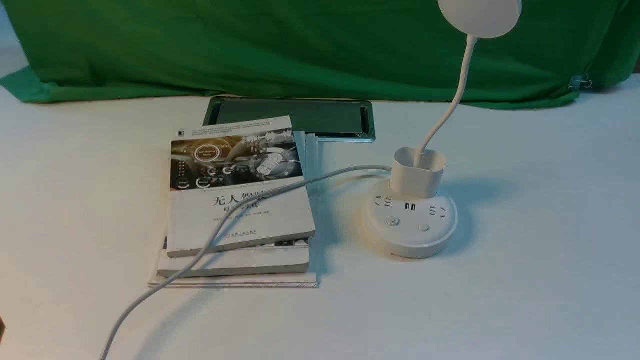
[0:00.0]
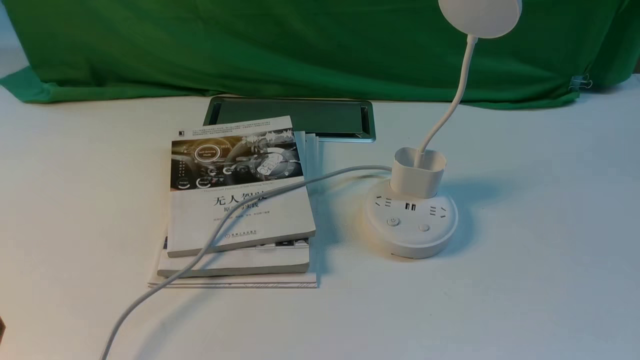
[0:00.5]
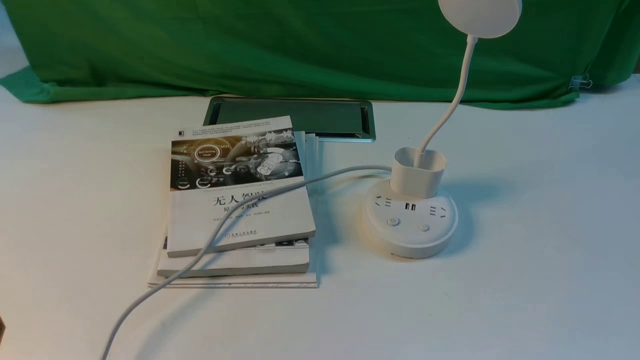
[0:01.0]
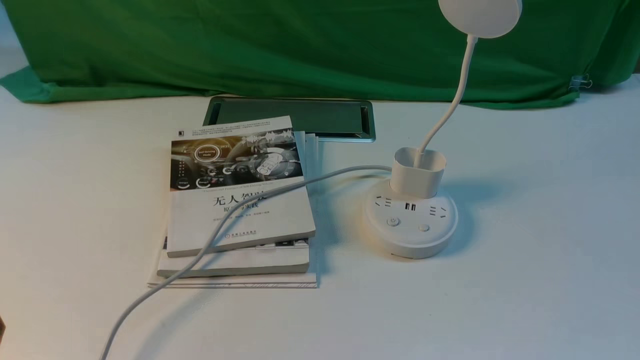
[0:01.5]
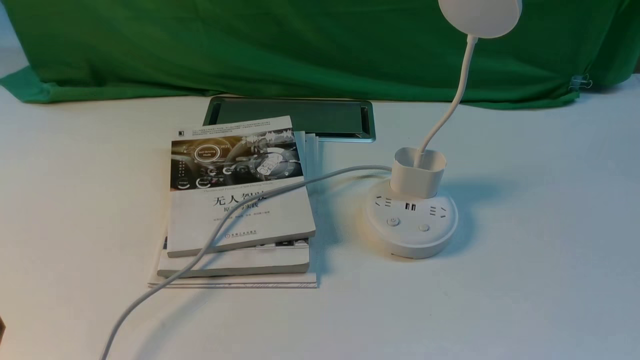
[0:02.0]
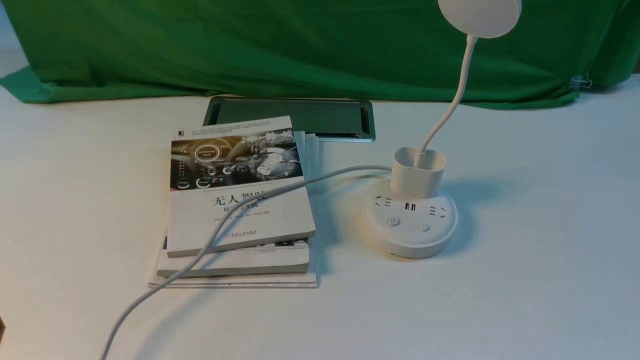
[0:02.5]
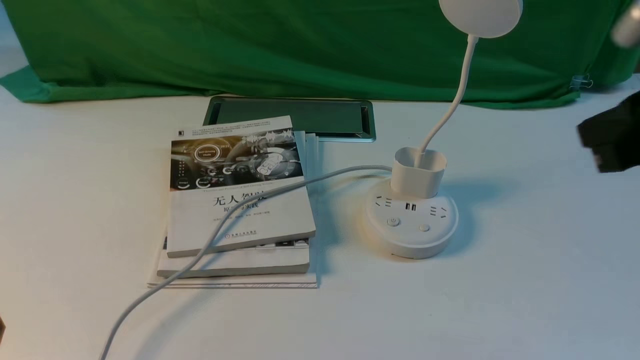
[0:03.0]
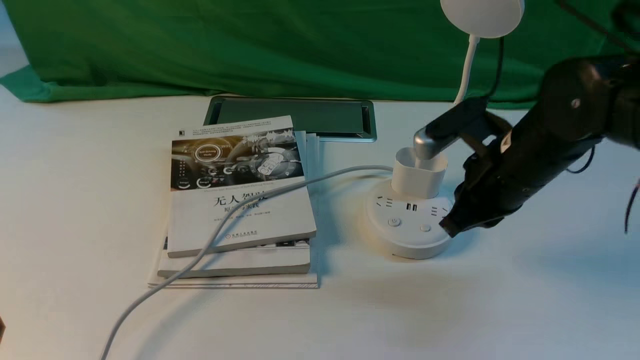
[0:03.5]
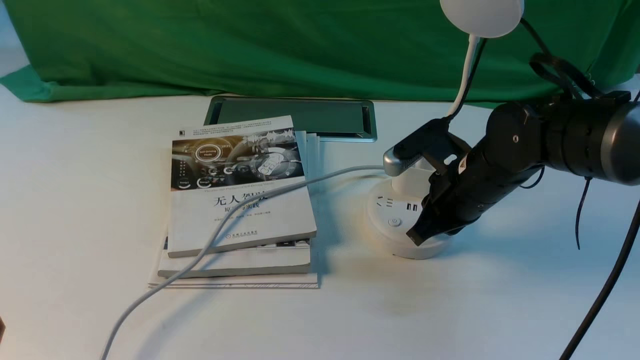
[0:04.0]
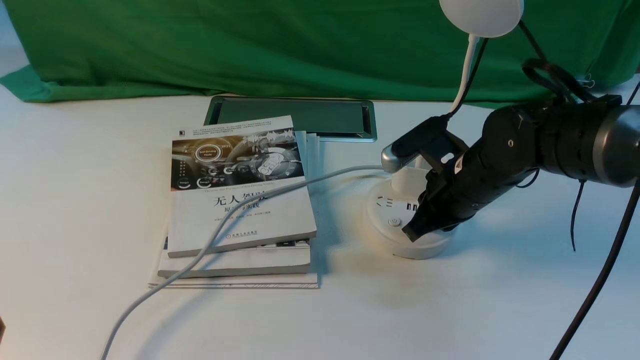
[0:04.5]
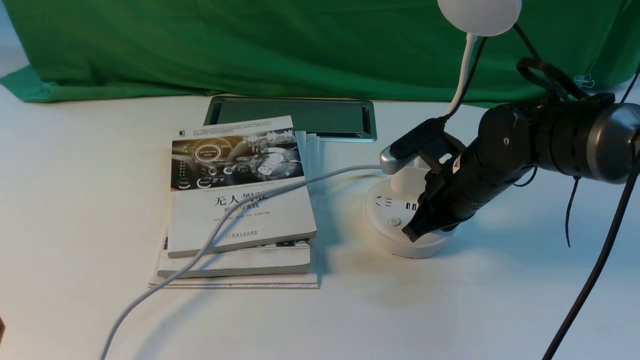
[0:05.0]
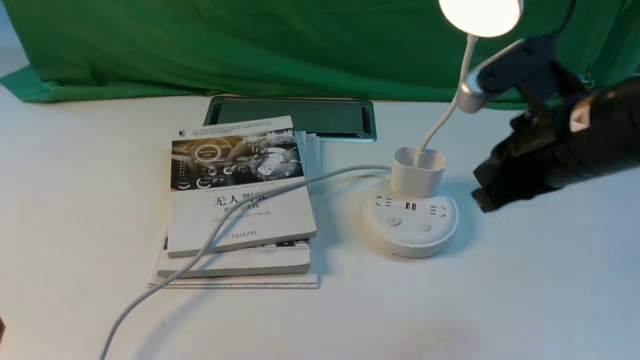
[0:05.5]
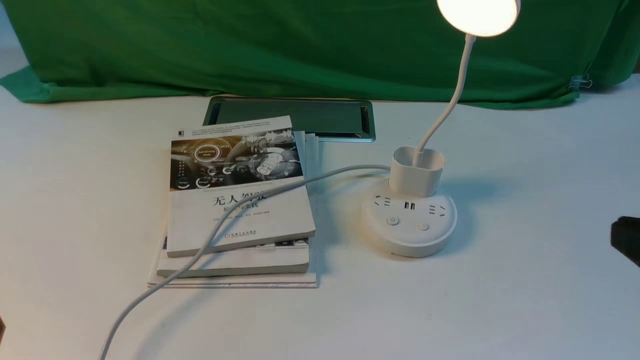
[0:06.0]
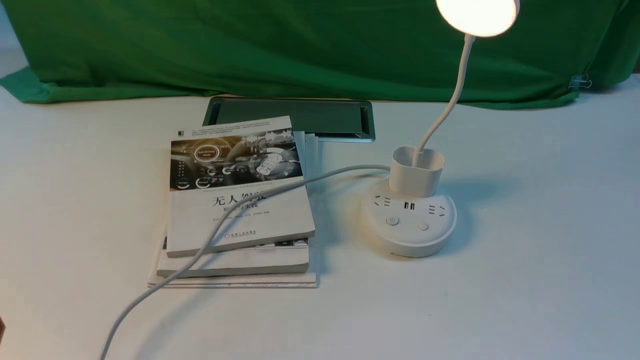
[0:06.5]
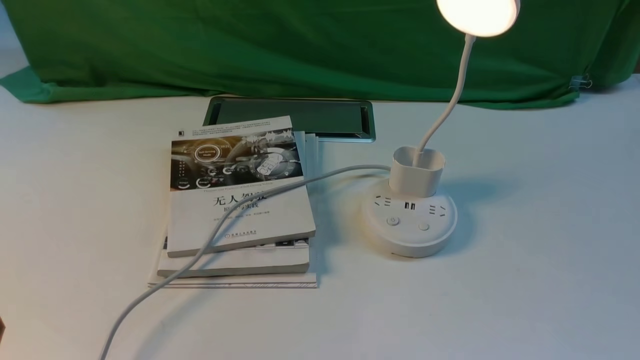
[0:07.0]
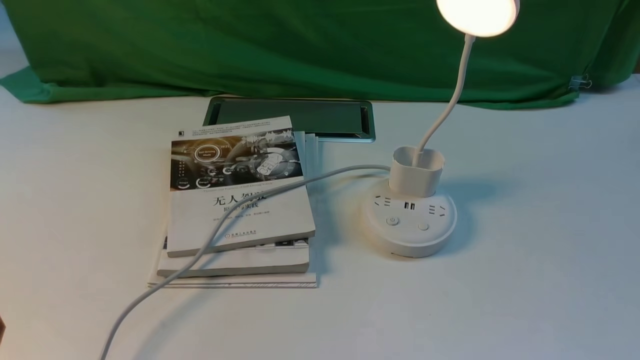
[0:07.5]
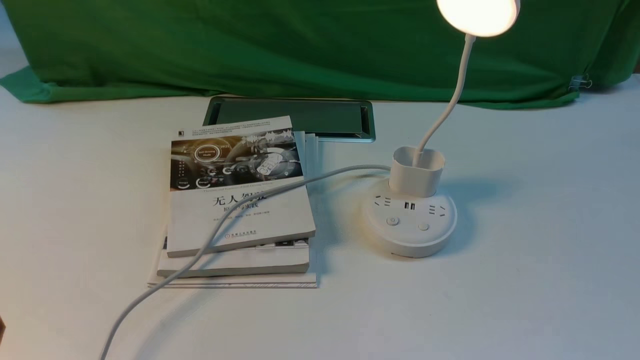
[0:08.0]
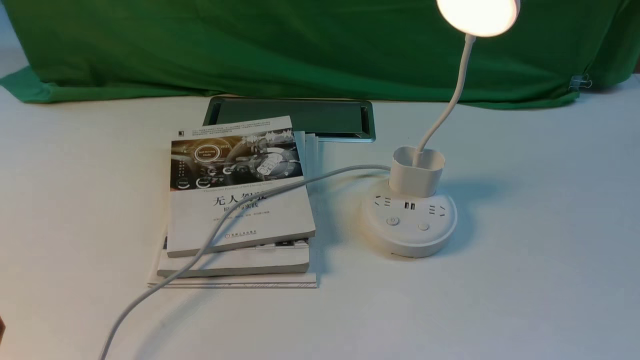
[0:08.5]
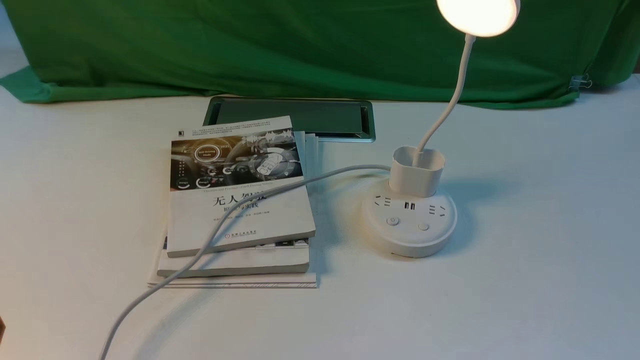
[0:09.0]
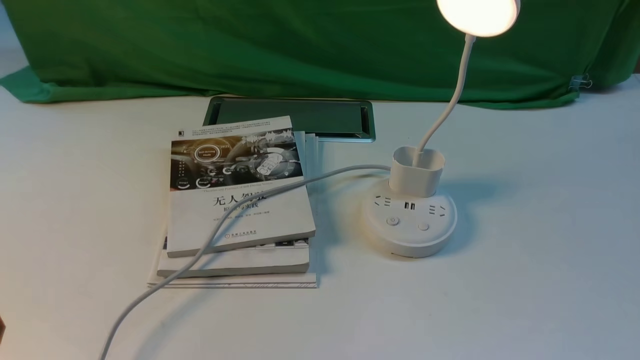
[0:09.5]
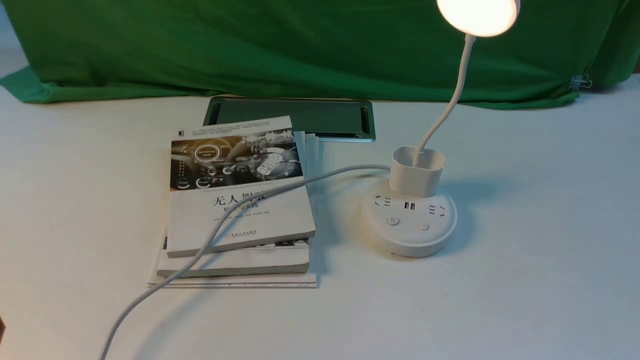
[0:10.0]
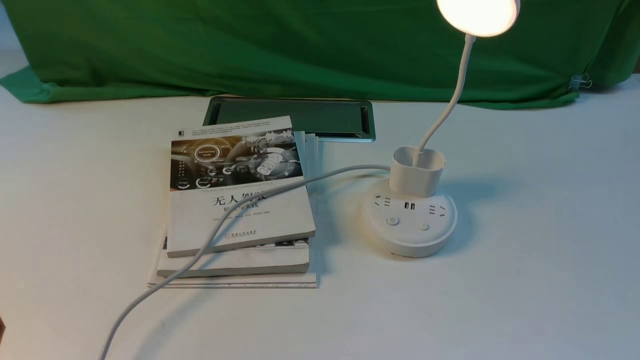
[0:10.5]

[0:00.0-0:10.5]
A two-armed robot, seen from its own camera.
Step, 0:00.0 to 0:05.0: use the right arm to press the button switch on the lamp holder.
0:02.0 to 0:04.0: The right gripper goes approximately 35 cm forward and to the left, and closes.
0:04.0 to 0:06.5: The right gripper heads backward and to the right, covering some 30 cm.
0:08.5 to 0:10.5: Both grippers stay put.

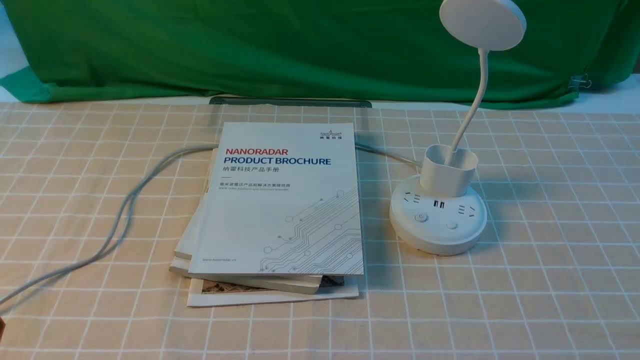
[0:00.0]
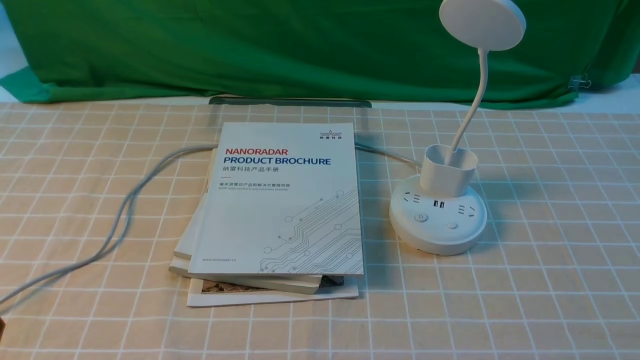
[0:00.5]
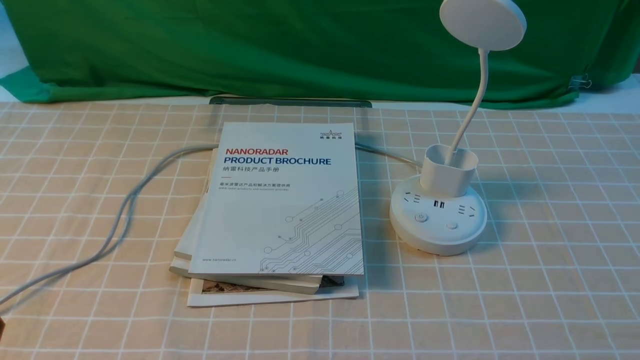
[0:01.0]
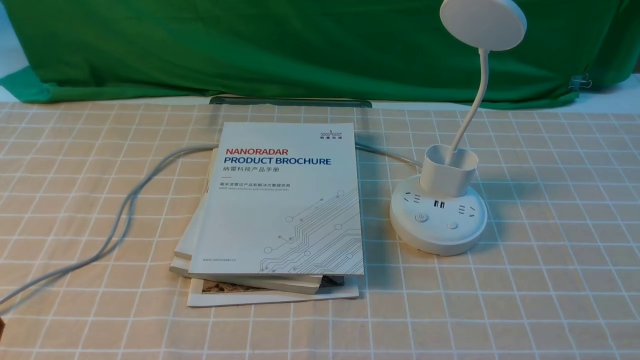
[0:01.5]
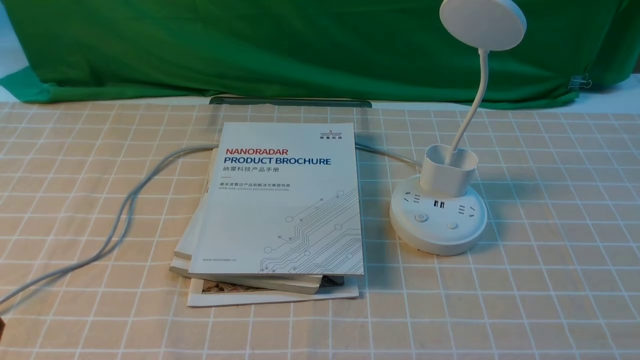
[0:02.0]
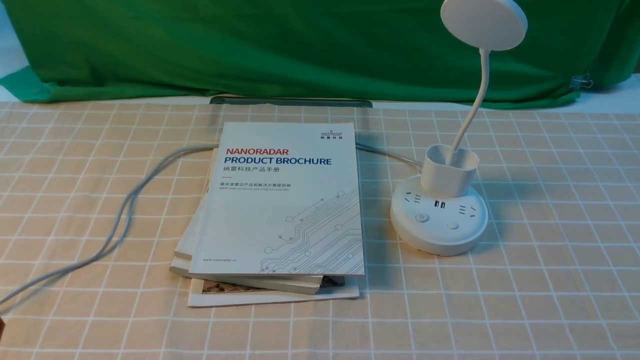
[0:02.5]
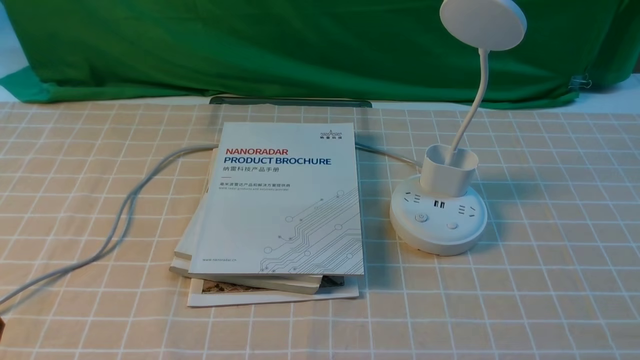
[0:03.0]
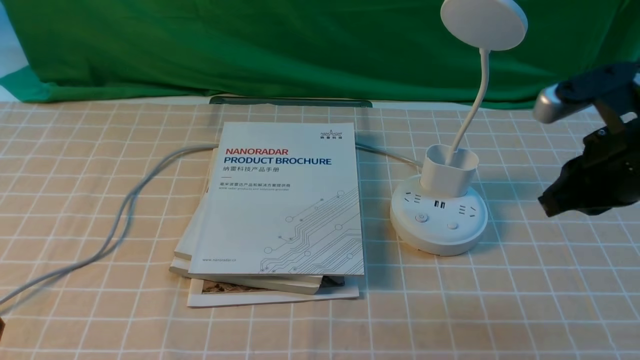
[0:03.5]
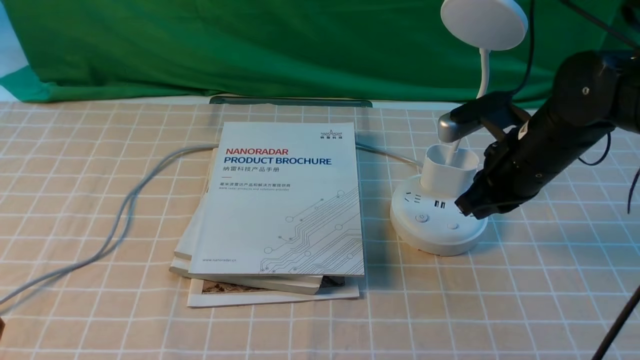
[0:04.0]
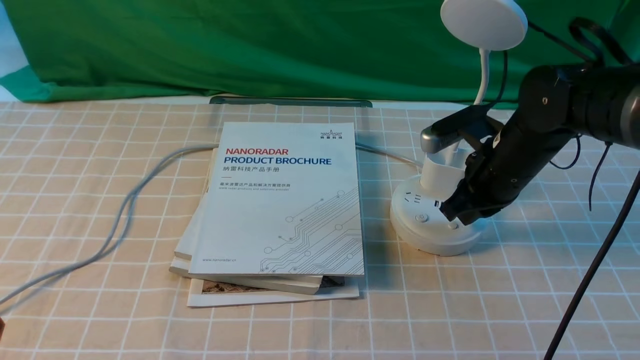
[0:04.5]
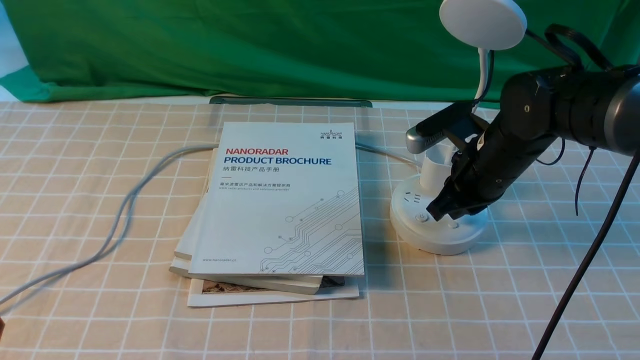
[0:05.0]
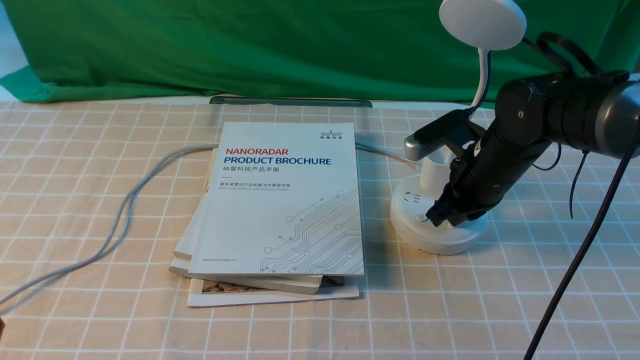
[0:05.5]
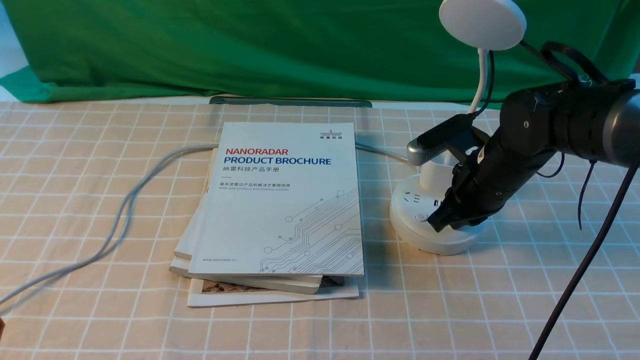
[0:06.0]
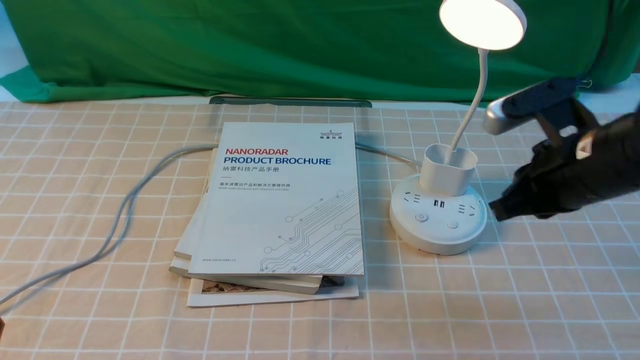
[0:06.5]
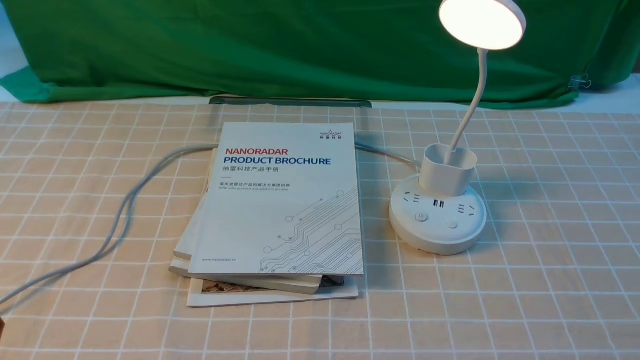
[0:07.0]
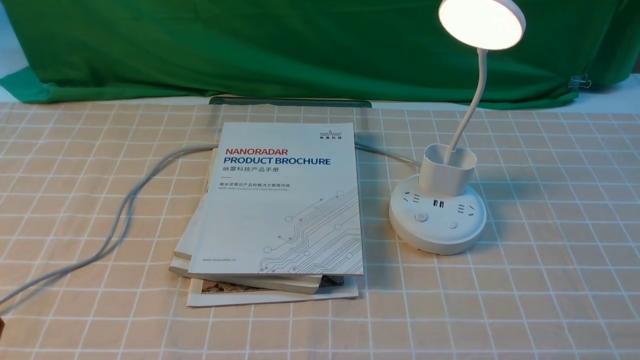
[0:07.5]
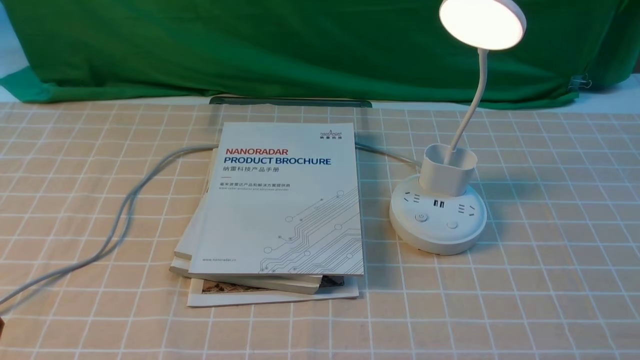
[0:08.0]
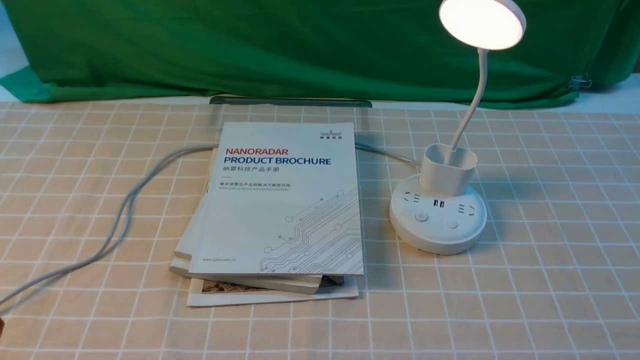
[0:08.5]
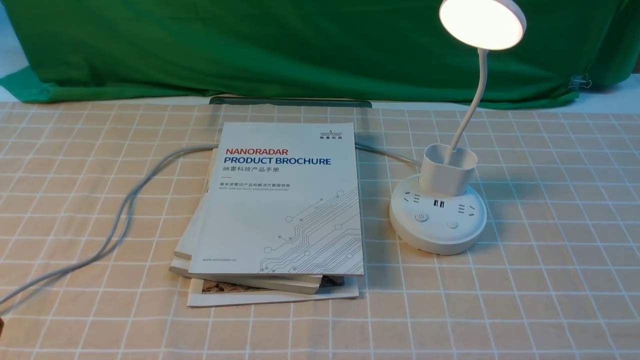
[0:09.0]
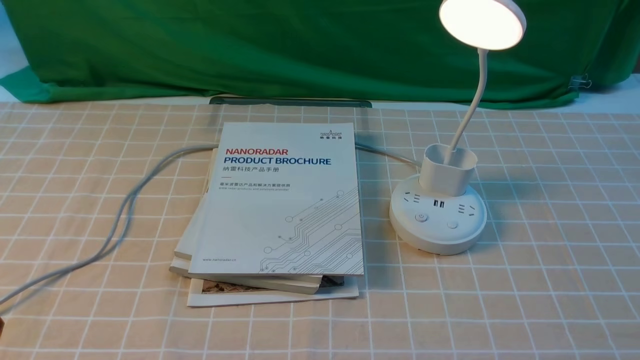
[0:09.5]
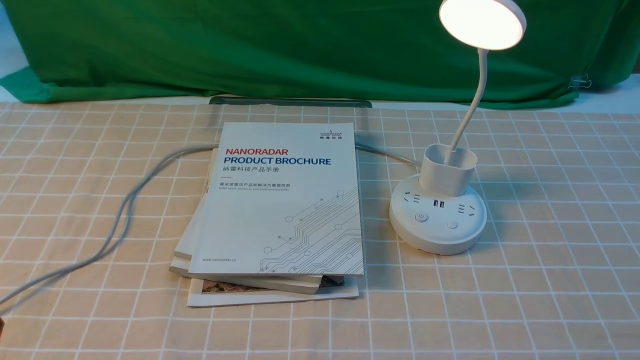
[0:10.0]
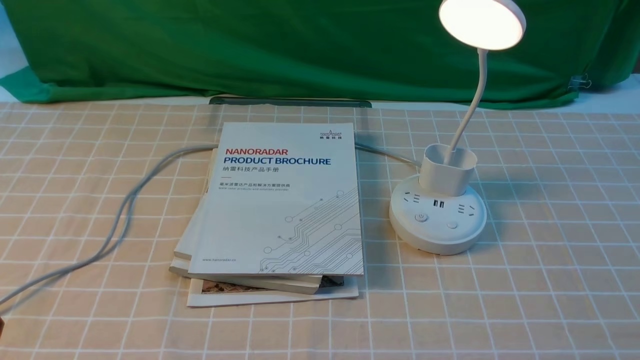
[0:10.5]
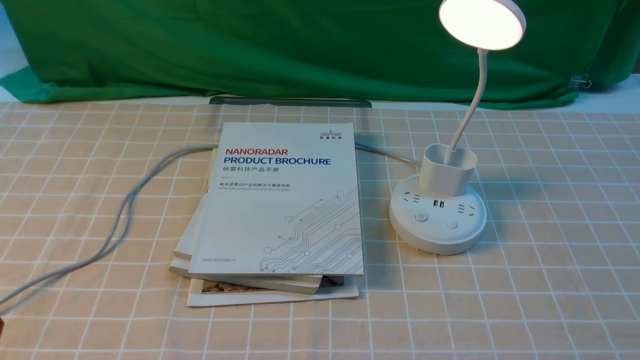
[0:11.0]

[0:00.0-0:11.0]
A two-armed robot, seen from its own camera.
Step, 0:00.0 to 0:06.5: use the right arm to press the button switch on the lamp holder.
0:02.0 to 0:03.5: The right gripper is displaced forward and upward by some 25 cm, and closes up.
0:03.5 to 0:05.5: The right gripper is displaced downward, forward and to the left by approximately 15 cm.
0:05.5 to 0:07.5: The right gripper travels backward and to the right by approximately 30 cm.
0:09.0 to 0:11.0: Both grippers stay put.
